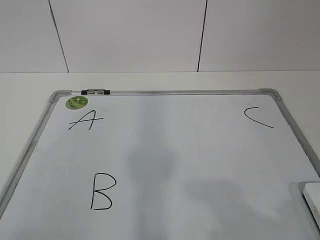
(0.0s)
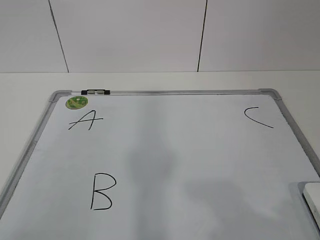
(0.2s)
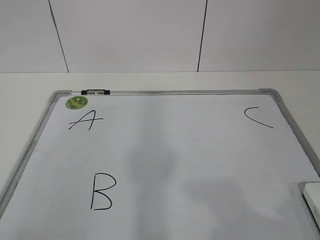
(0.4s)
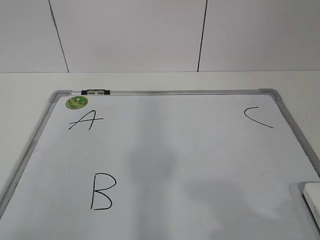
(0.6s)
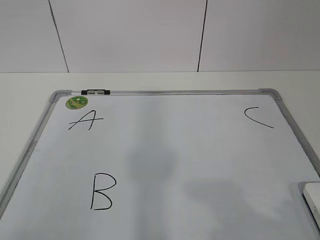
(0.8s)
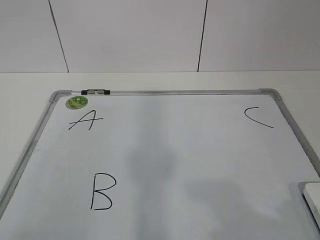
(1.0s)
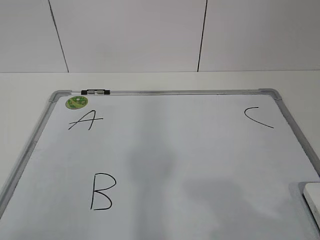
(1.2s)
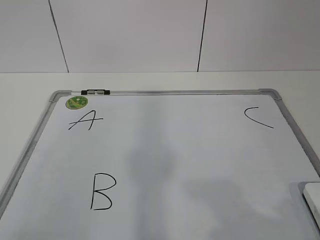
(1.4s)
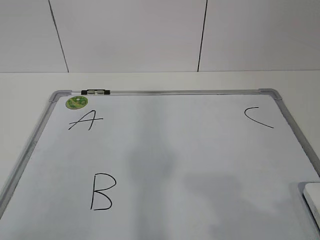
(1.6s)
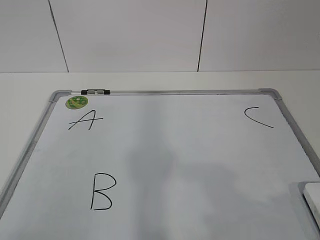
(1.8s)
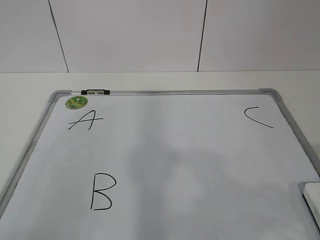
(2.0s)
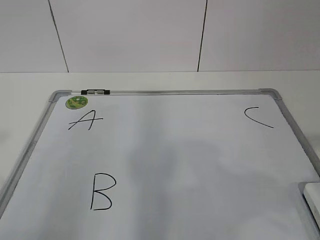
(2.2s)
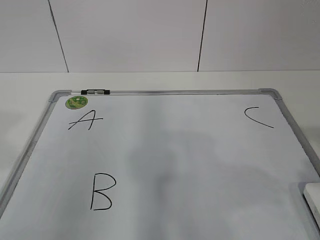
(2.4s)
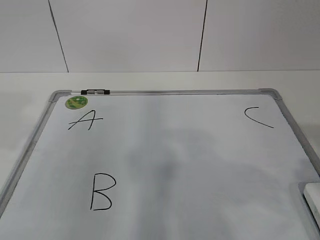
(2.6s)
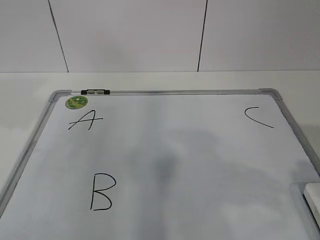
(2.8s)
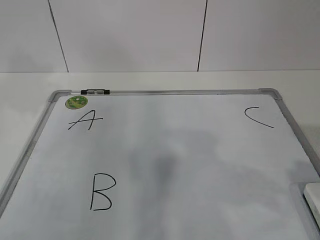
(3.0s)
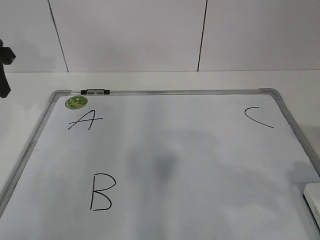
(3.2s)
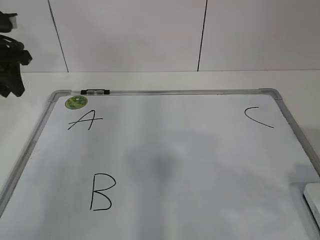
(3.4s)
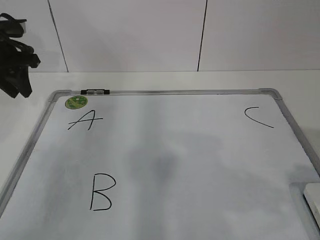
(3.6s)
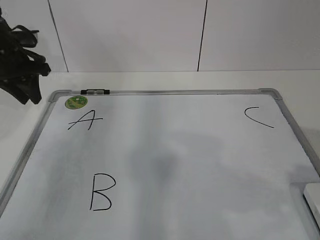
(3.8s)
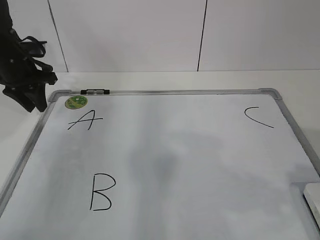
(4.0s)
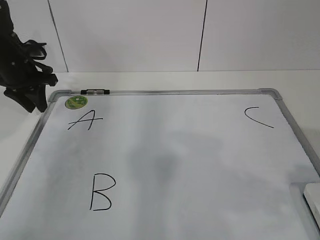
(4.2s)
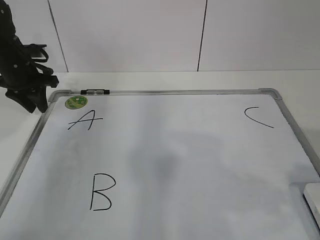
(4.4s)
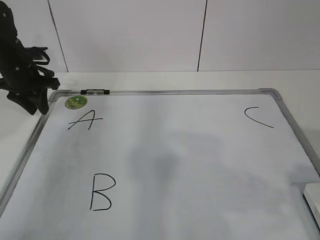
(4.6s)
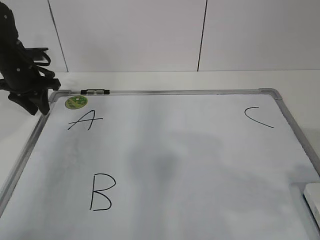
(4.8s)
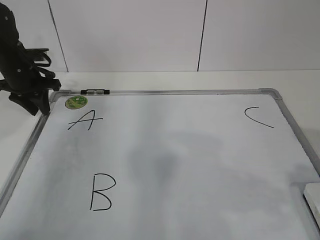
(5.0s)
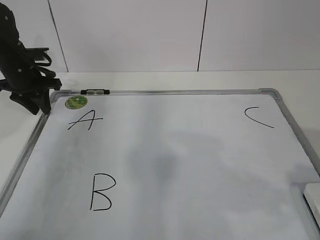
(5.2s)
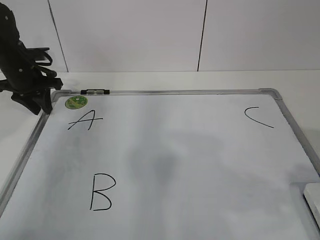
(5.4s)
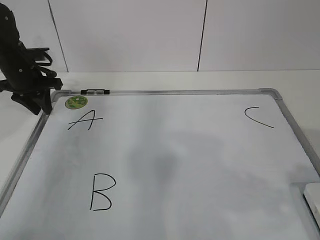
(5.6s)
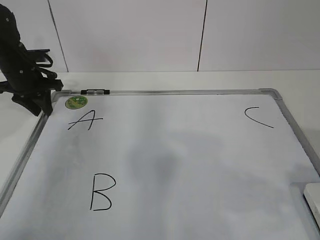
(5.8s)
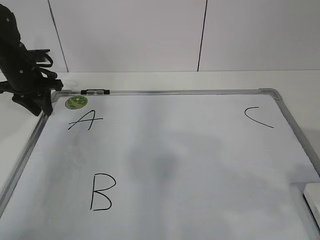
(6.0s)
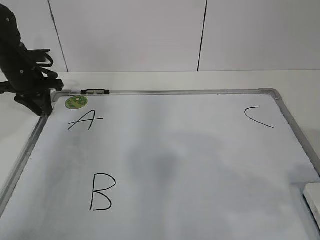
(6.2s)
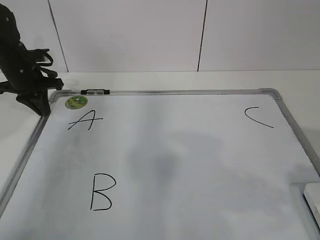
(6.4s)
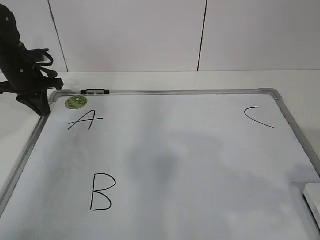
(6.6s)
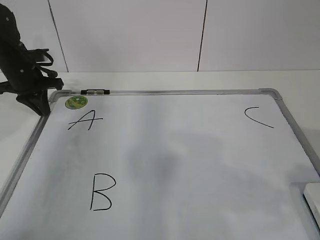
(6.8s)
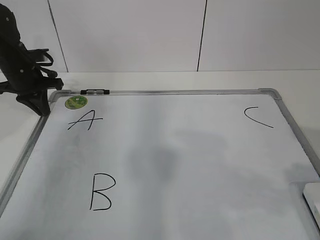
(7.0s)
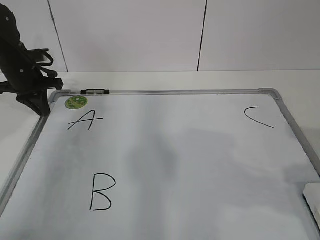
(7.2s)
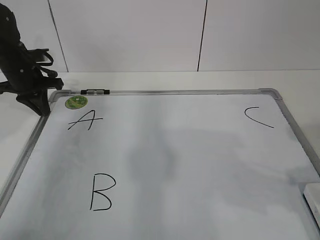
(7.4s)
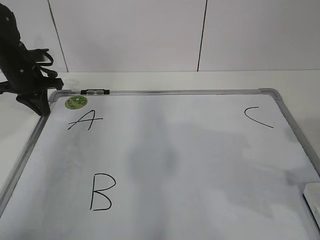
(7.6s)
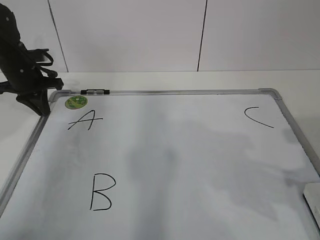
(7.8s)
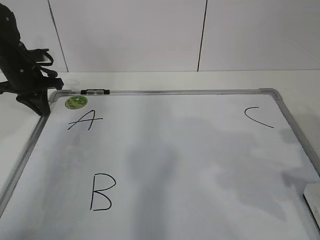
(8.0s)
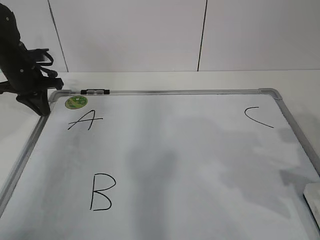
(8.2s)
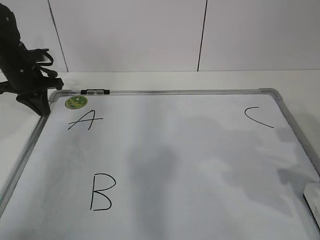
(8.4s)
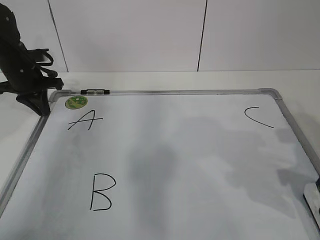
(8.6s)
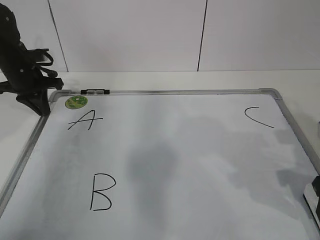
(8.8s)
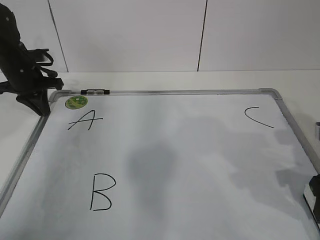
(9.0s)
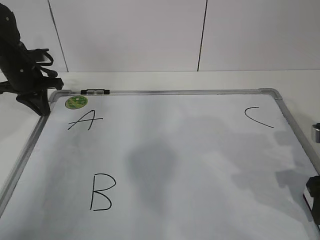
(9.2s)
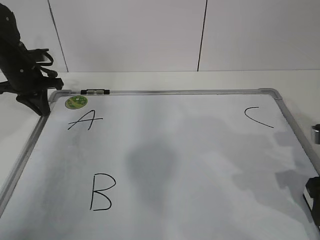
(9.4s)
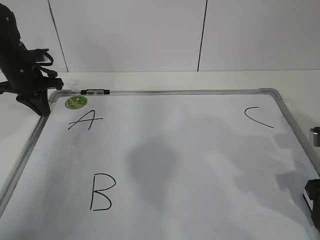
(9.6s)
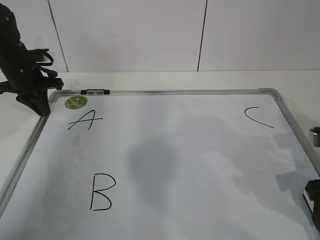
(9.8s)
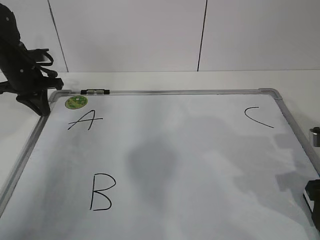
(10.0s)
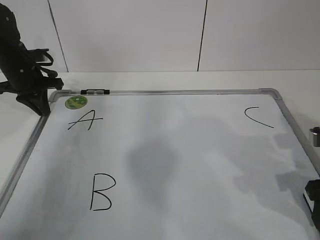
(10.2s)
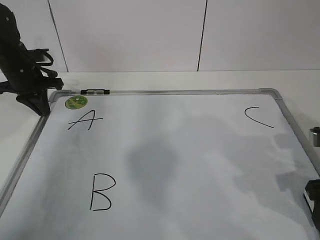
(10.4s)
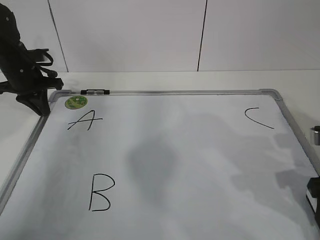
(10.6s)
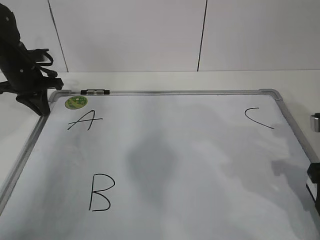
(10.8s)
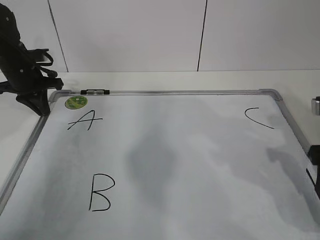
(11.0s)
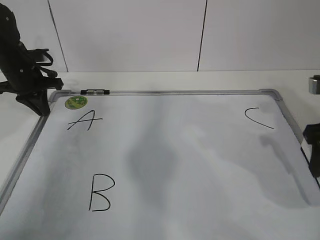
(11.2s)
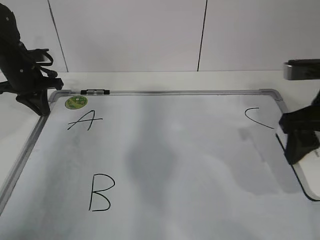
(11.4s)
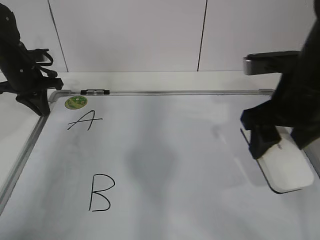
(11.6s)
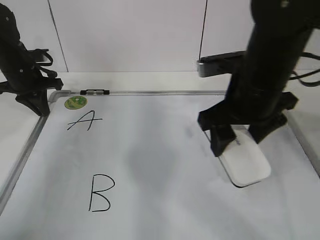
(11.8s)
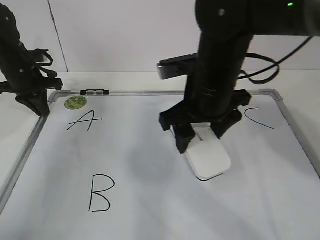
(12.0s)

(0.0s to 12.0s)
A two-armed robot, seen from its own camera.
Task of the whole recording: pick up the eraser on the blackboard and erase the letter "B".
Step, 0.0s - 5.2s: Hold the drawing board steady with your left hand.
1.6s - 3.0s: The left gripper is displaced forward by about 30 cm; the right gripper moves forward, about 10 cm.
3.0s - 4.4s: The left gripper moves forward and downward, about 20 cm.
4.4s - 6.0s: The grippers stay close to where they were, moving slightly.
6.0s - 7.6s: The left gripper closes its fingers.
7.6s - 9.0s: The right gripper moves downward and forward, some 10 cm.
9.0s - 10.4s: The two grippers keep their place.
10.4s - 12.0s: The right gripper travels to the left and forward by some 20 cm.

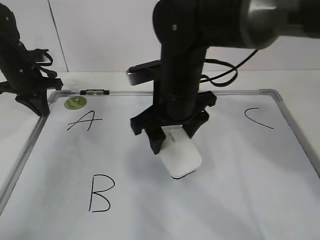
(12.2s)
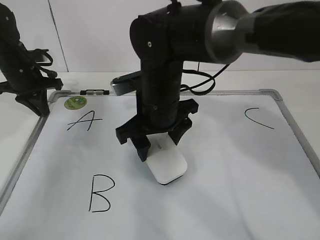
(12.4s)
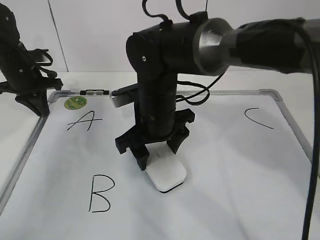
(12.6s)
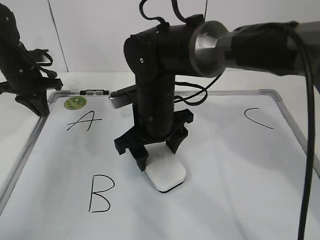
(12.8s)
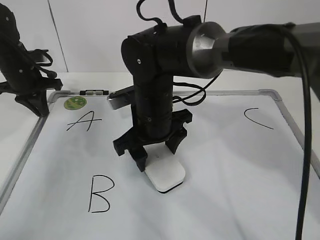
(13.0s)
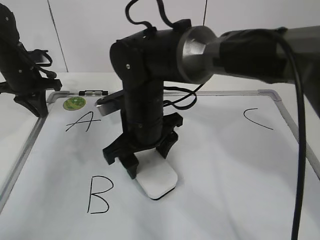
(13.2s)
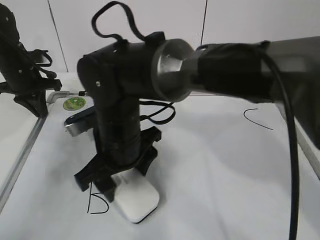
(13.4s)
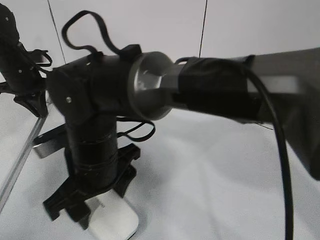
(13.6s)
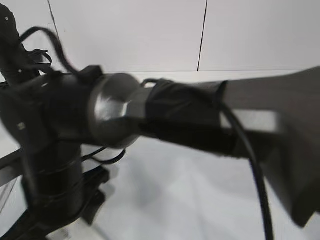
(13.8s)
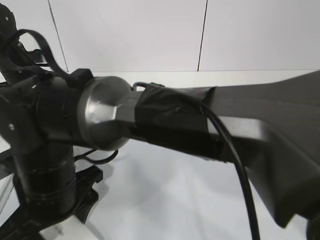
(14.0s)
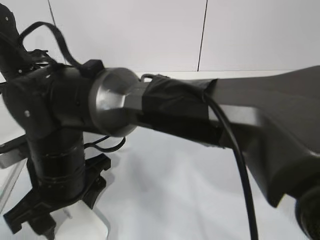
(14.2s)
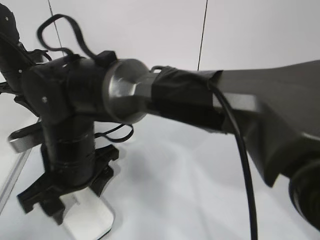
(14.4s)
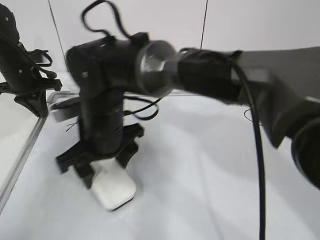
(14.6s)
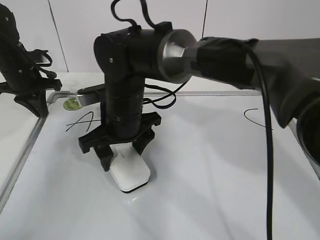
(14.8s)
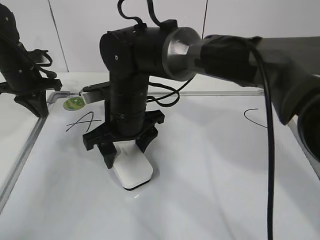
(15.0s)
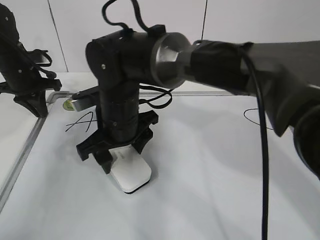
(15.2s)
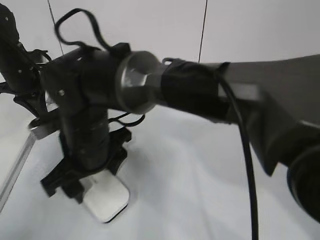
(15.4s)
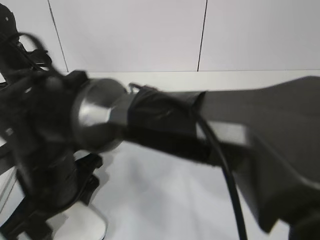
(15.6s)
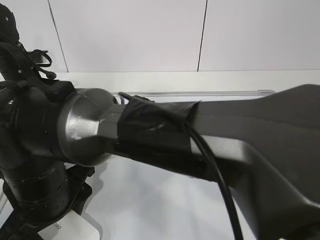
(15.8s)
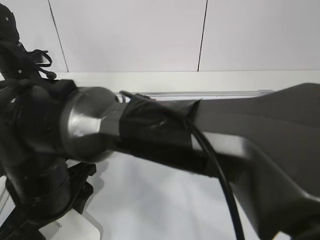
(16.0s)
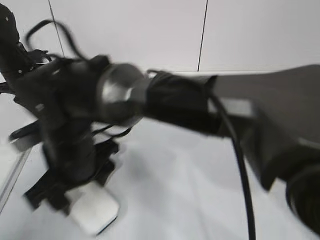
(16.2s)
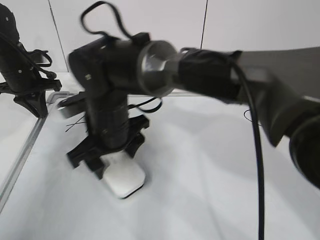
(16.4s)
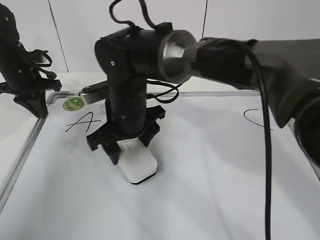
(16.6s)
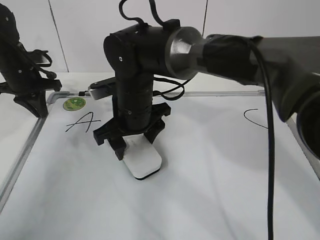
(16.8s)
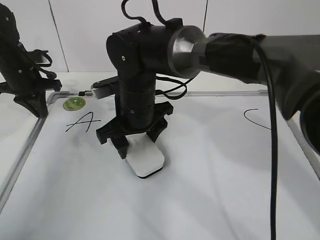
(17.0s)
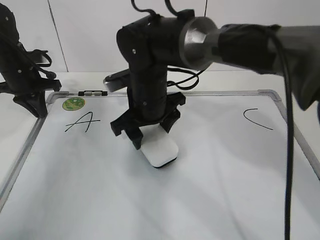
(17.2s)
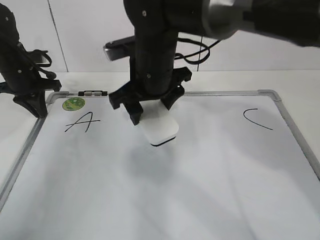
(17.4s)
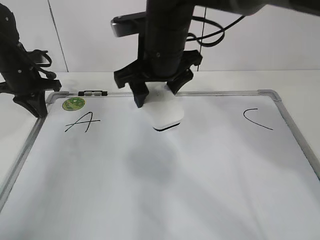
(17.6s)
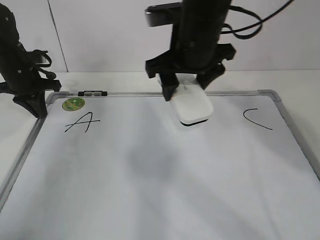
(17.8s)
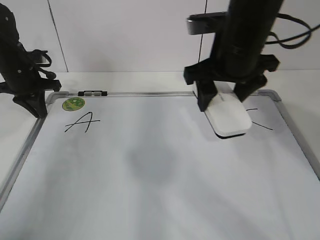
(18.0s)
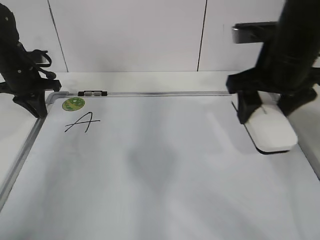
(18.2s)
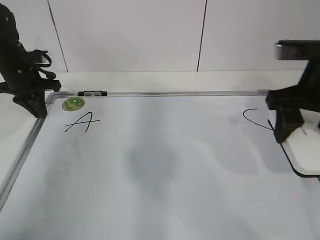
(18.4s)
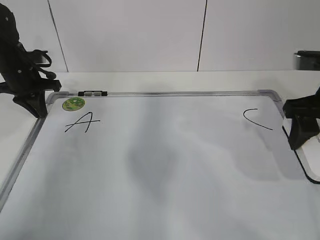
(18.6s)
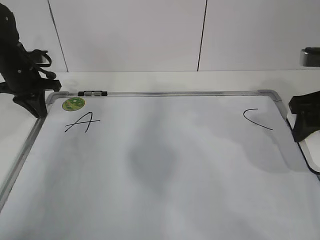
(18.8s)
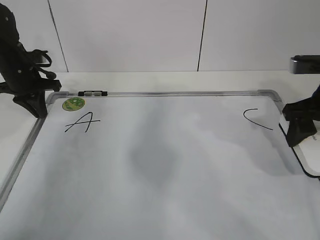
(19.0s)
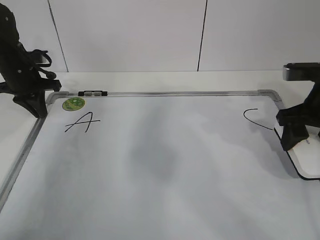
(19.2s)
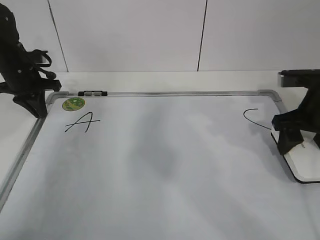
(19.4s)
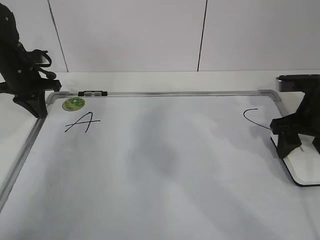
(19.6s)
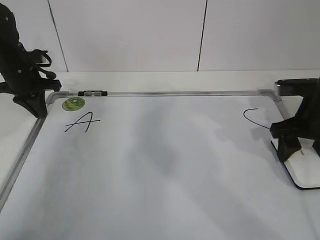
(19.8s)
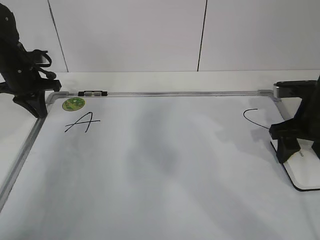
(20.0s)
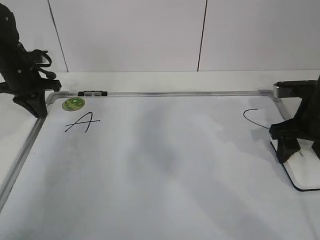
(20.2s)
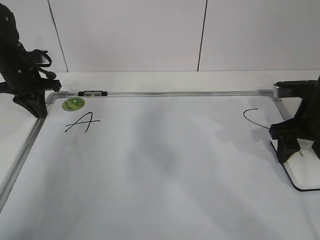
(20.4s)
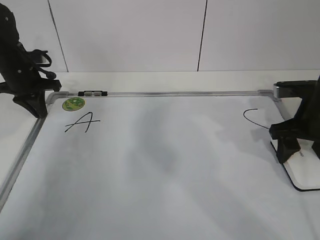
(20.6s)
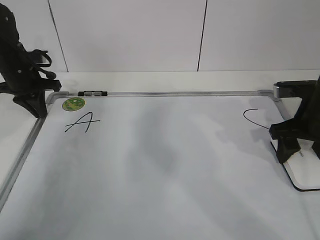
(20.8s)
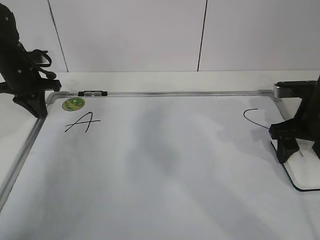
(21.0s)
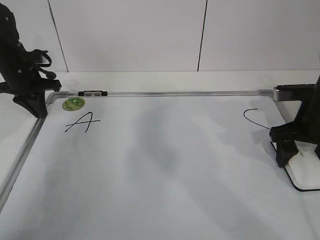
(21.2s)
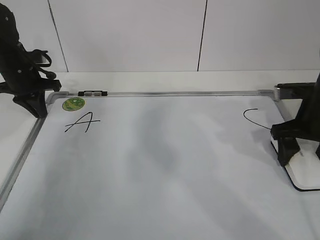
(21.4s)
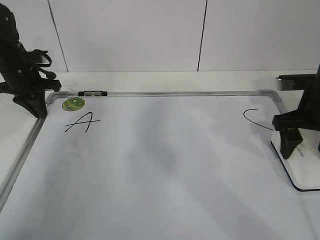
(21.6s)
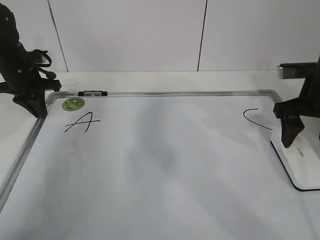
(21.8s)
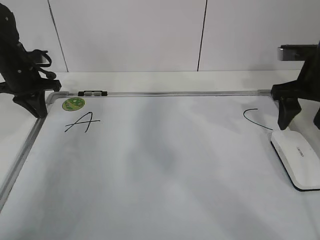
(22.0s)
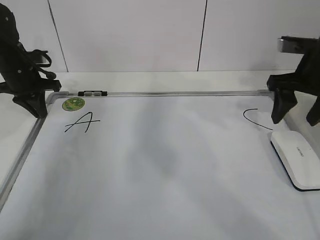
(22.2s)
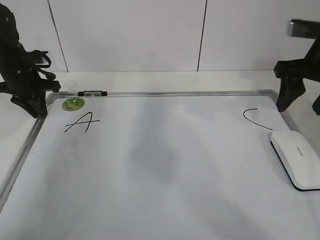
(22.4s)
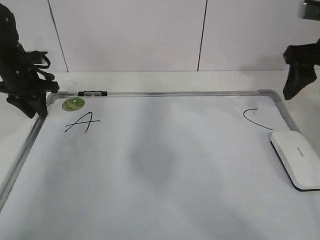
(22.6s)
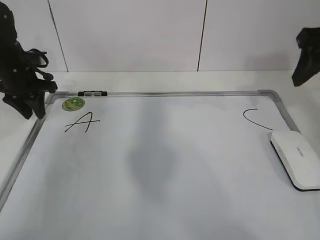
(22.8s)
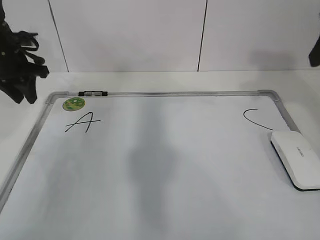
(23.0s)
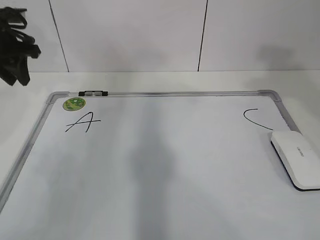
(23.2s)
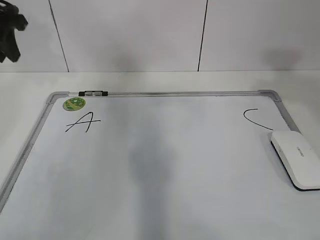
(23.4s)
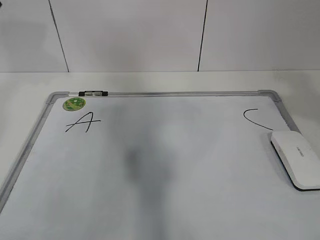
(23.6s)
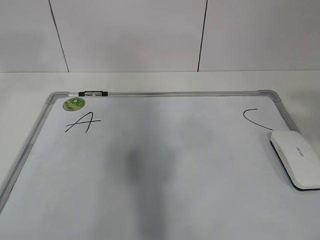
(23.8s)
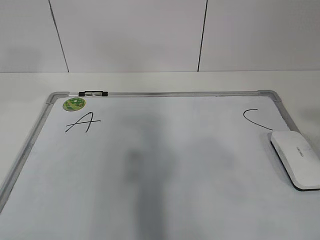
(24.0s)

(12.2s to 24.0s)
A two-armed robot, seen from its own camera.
Task of the whole recording: pick up the eraser on the blackboard and erase the letter "B".
Step, 14.2s - 17.2s: Put down the eraser with your right hand.
12.2s - 13.6s: The right gripper travels to the left, backward and downward by some 15 cm.
13.6s - 15.2s: The right gripper is displaced forward by approximately 10 cm.
15.2s - 16.6s: The right gripper reaches roughly 10 cm backward, then returns.
16.6s - 18.2s: The right gripper heads to the right and upward, covering some 25 cm.
18.2s - 19.6s: The right gripper goes roughly 15 cm to the right and downward.
19.6s - 21.0s: Neither gripper changes place.
21.0s - 22.6s: The left gripper opens its fingers, while the right gripper shifts about 15 cm upward.
22.6s - 24.0s: The left gripper shifts roughly 35 cm upward and backward; the right gripper goes about 30 cm backward.
